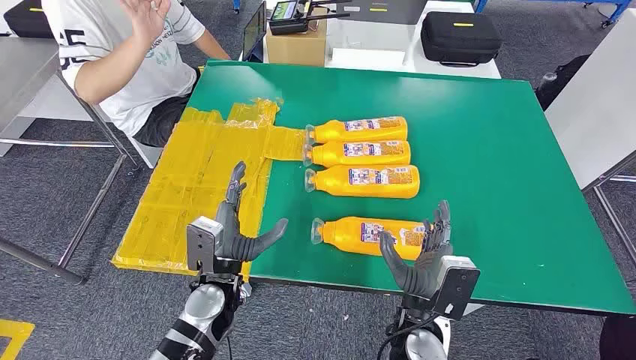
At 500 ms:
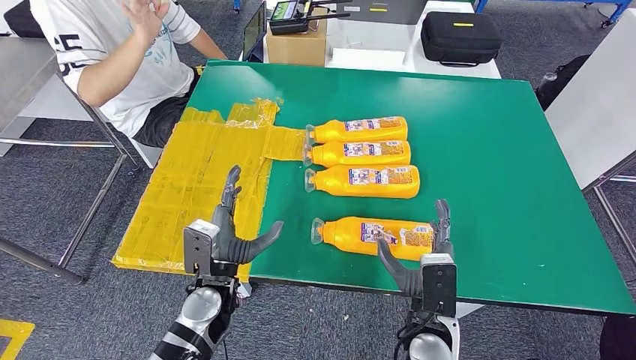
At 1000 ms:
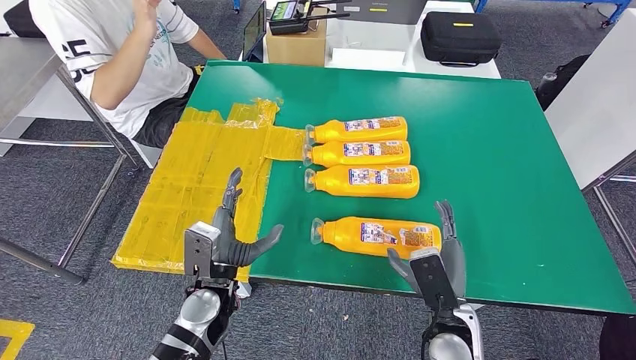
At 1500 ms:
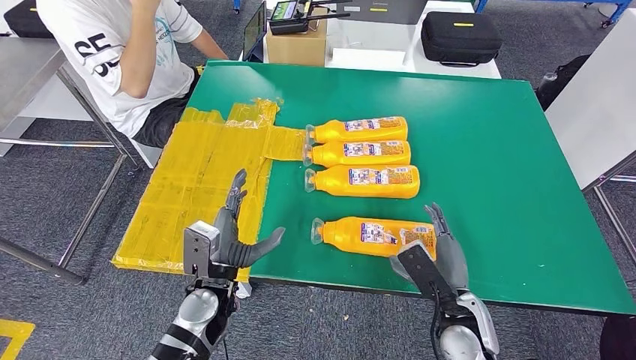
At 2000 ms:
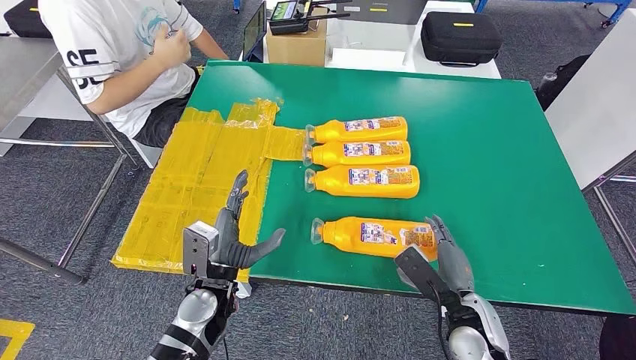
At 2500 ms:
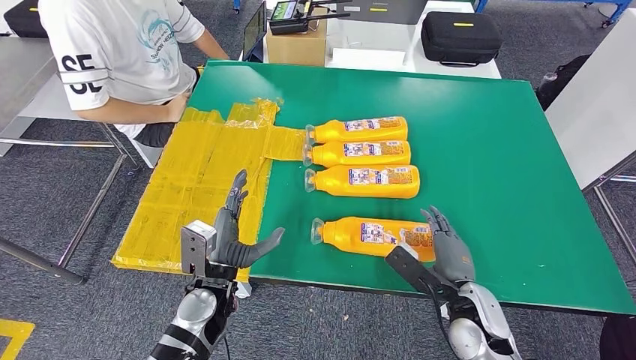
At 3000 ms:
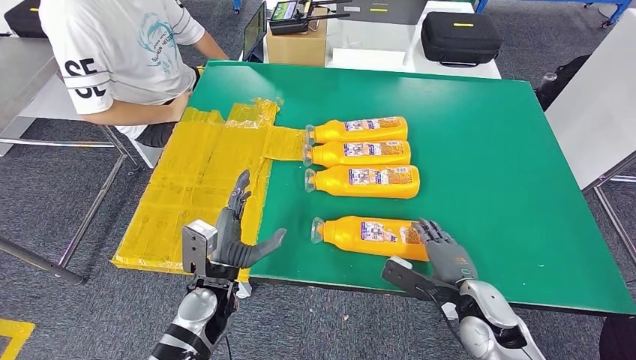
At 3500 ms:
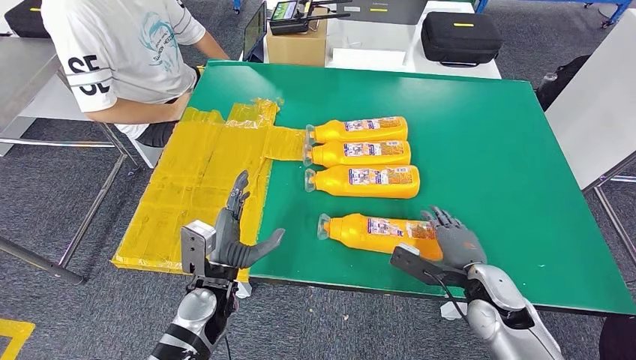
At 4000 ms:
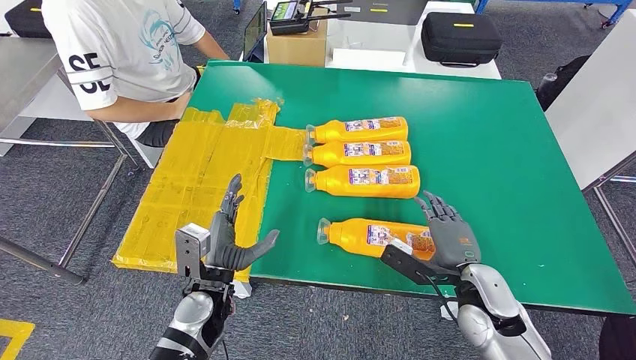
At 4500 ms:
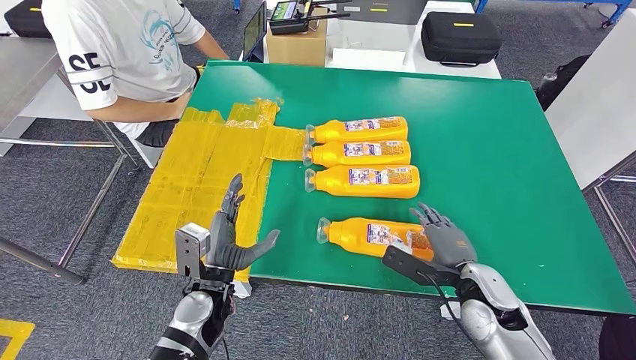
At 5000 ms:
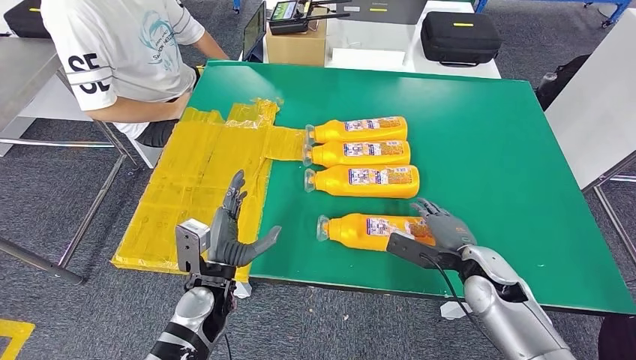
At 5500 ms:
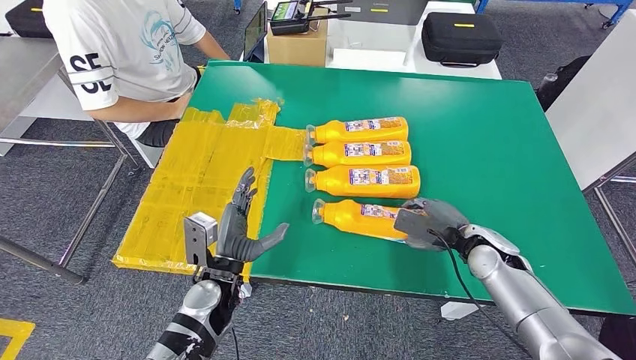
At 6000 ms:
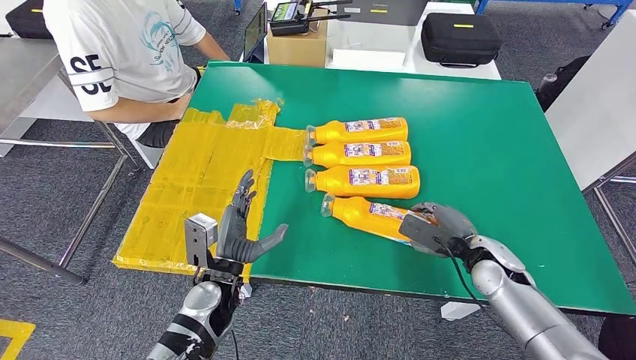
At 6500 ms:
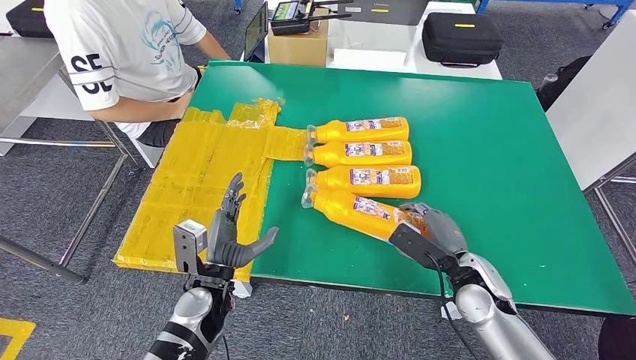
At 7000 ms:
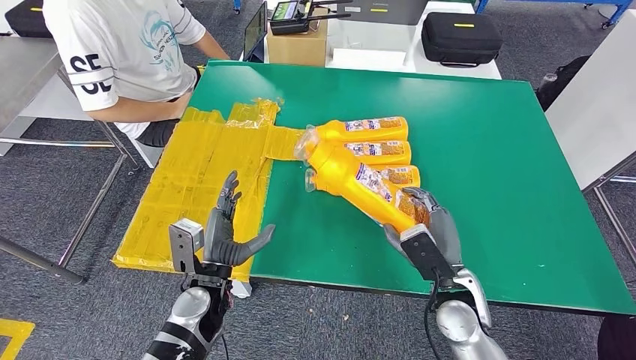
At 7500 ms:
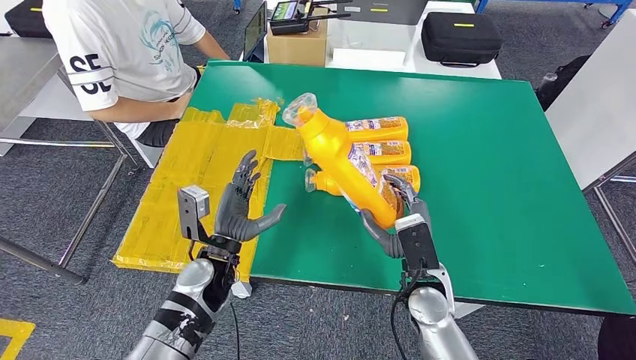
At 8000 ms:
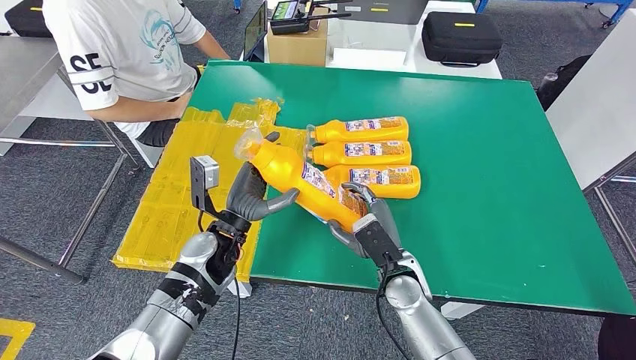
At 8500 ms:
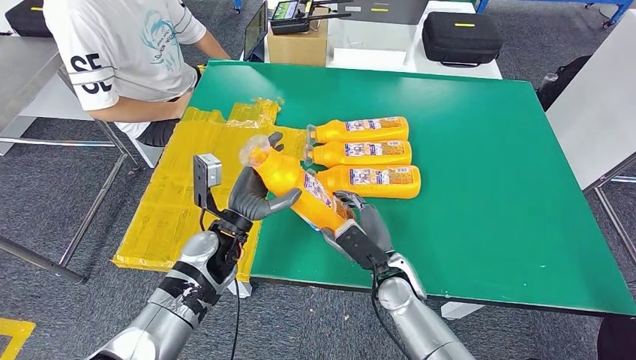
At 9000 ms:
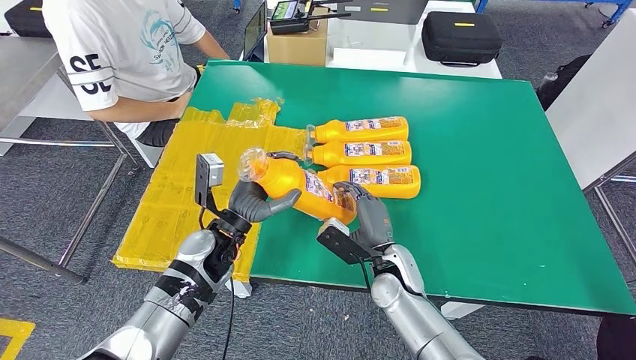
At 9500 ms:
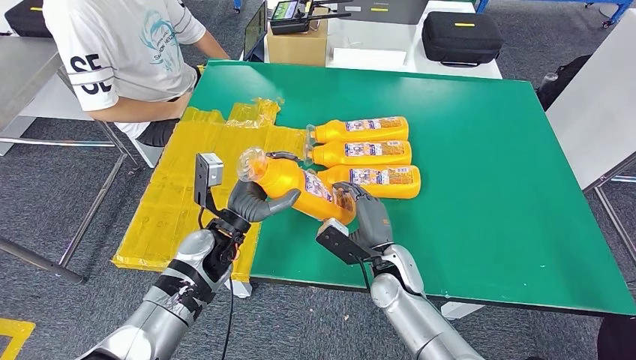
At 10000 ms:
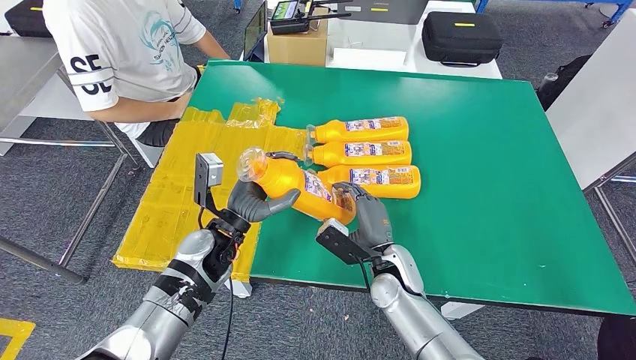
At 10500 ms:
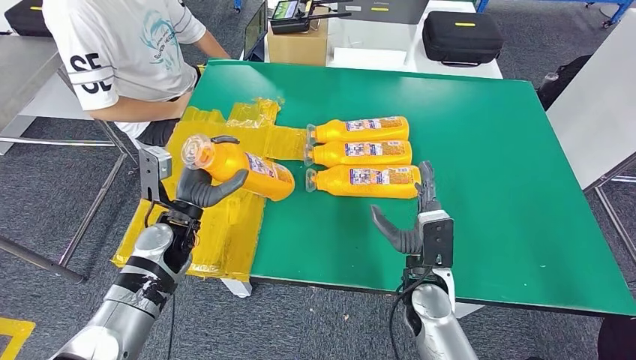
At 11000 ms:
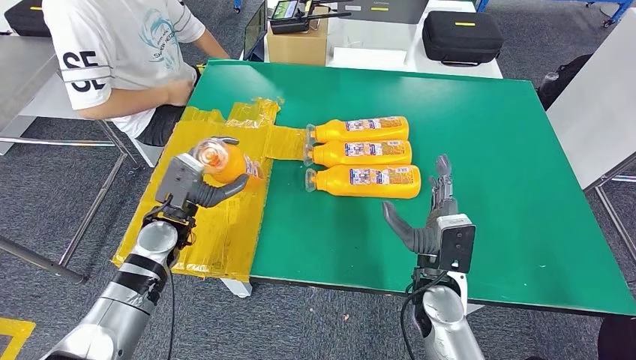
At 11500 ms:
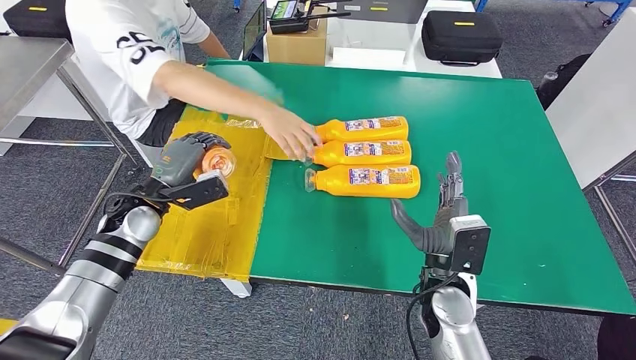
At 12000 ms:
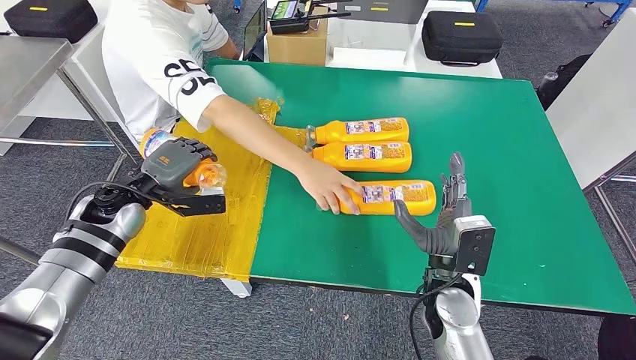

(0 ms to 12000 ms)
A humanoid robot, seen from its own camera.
Step, 0 ms - 8000 ms: Take the fast-moving consumer goods bottle from the table.
4000 ms - 6000 ms: The right hand goes approximately 5 cm forward.
6000 ms - 8000 ms: The right hand moves to the left, about 15 cm. Meanwhile the left hand shifts about 10 cm forward and upward.

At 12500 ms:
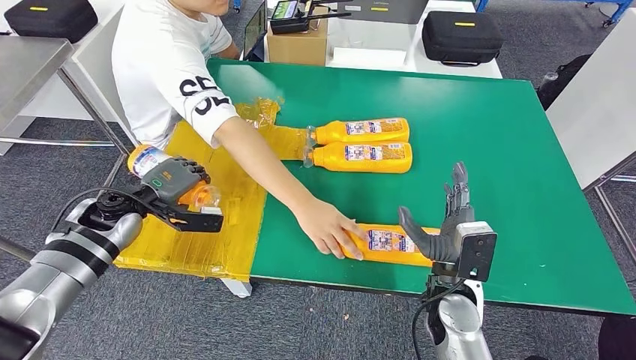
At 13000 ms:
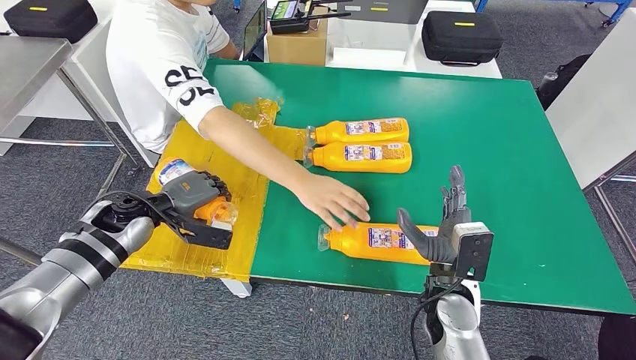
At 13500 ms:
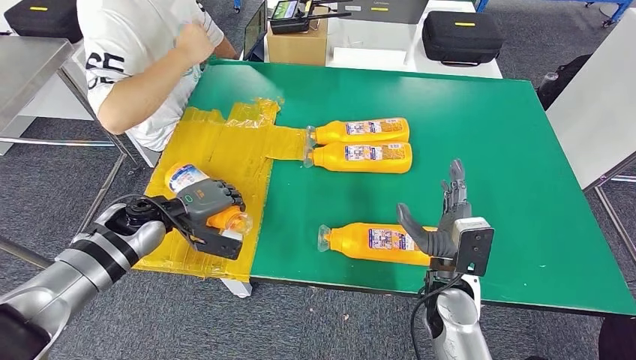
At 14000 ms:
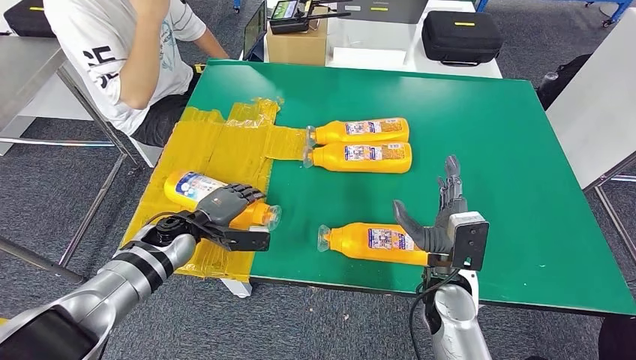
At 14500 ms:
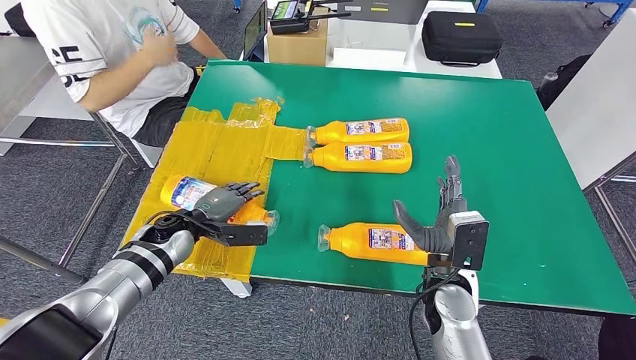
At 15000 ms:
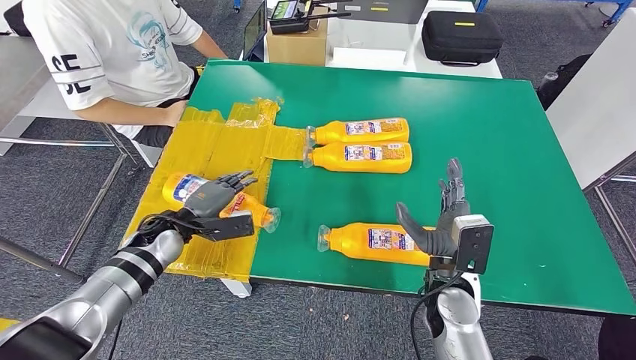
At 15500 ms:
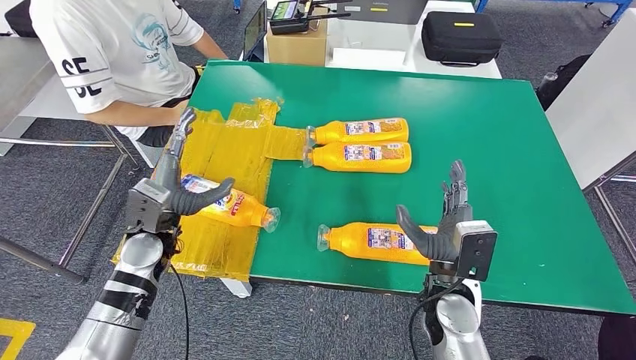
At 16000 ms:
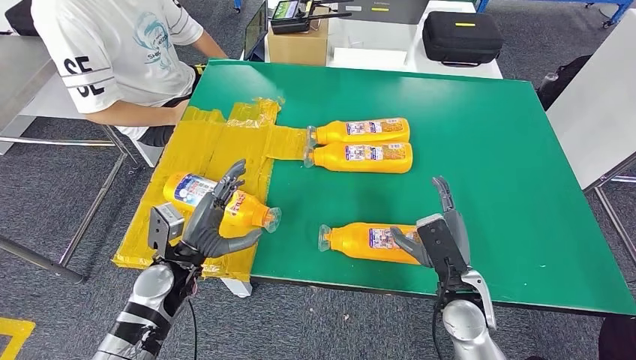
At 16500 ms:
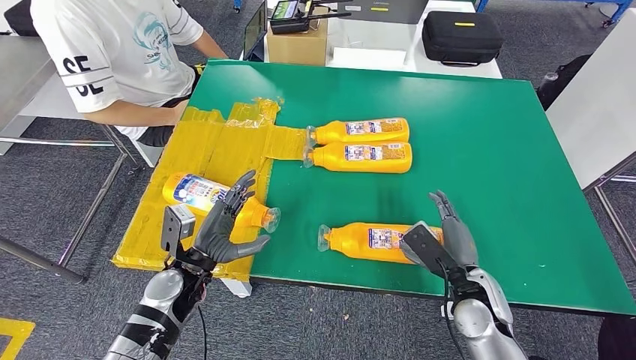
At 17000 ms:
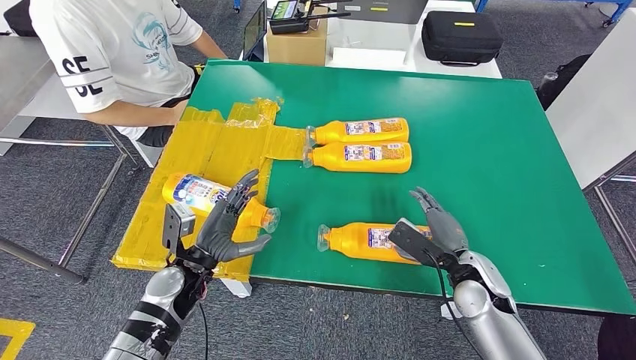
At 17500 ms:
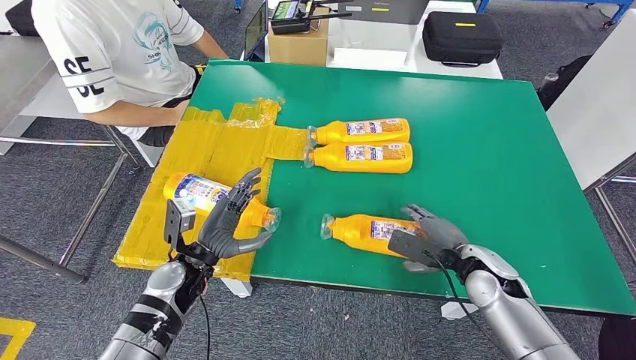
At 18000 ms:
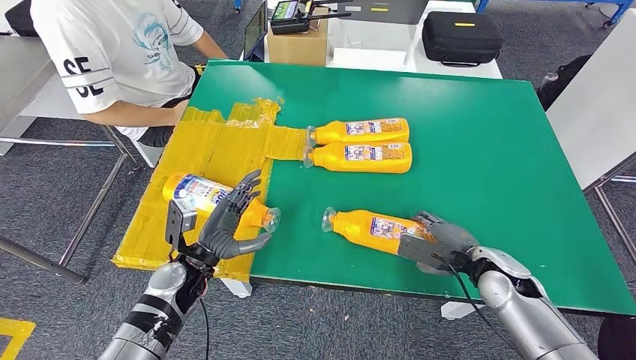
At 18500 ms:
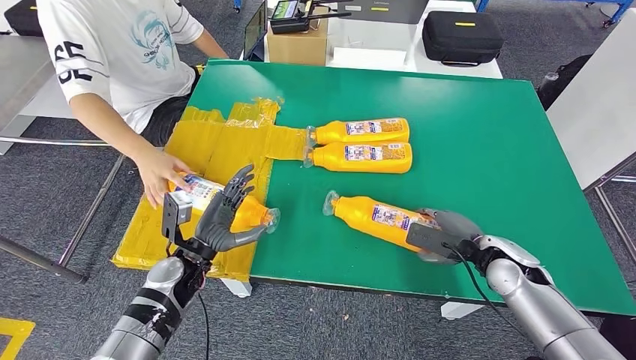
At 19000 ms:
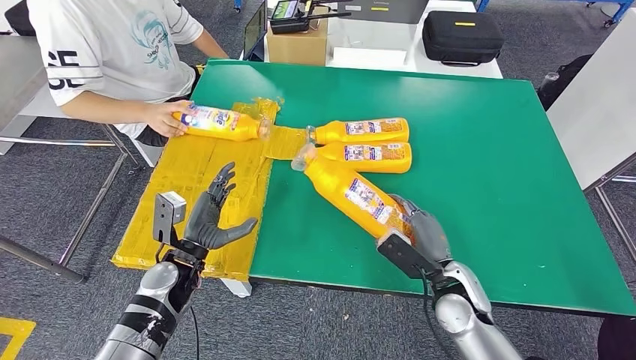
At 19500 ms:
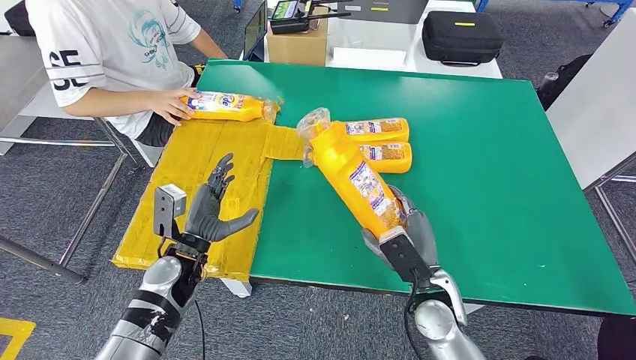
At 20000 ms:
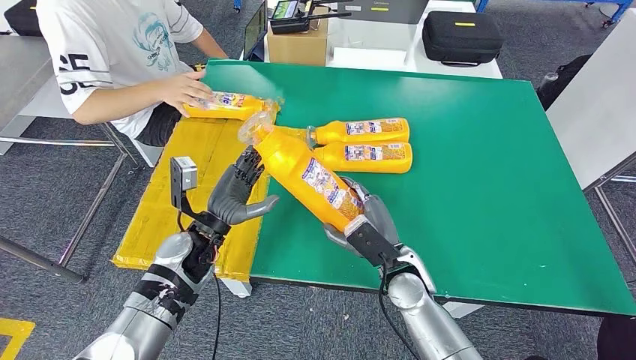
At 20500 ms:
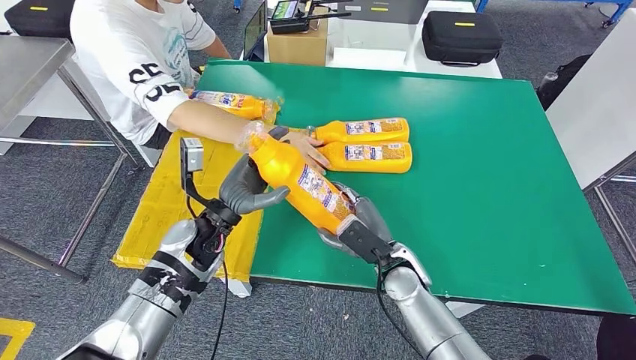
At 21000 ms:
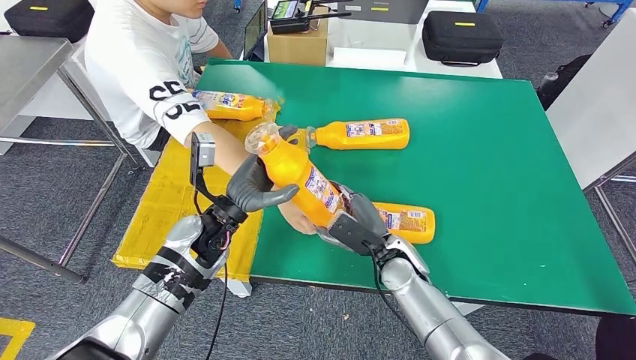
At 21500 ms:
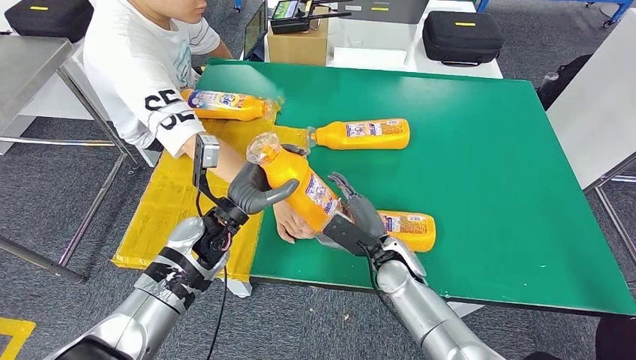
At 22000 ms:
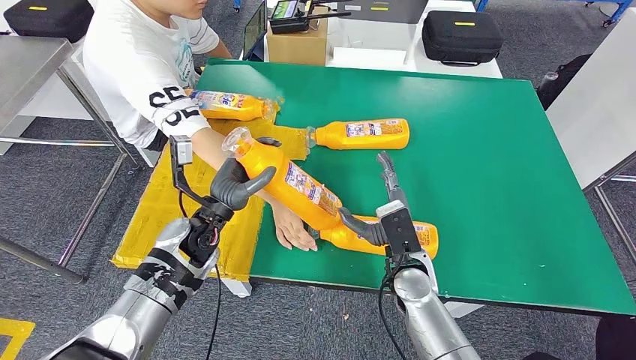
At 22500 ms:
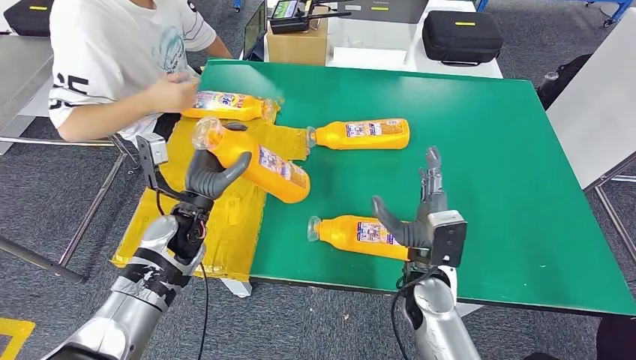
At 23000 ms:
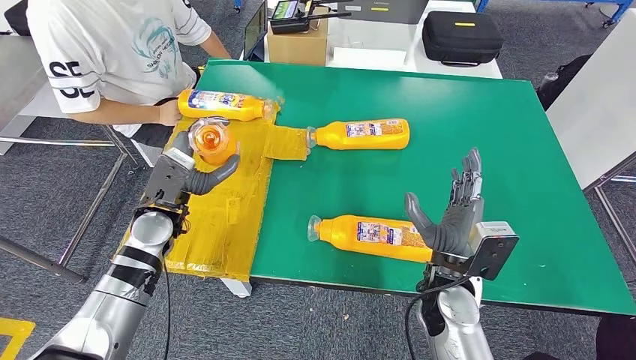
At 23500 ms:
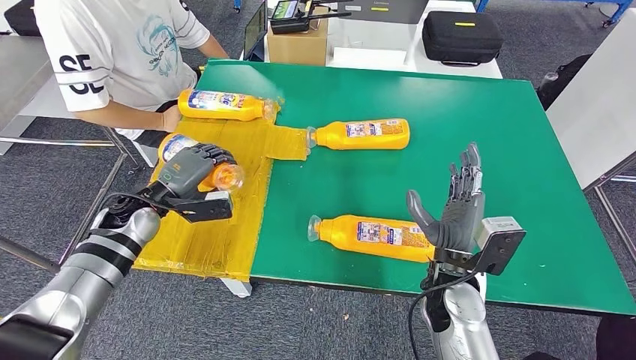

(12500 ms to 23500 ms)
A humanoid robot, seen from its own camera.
Step, 12500 ms - 15000 ms: Flip the fast-moving consumer goods bottle to the front side.
Step, 15500 ms - 19500 ms: Pick up the fast-moving consumer goods bottle from the table.
14500 ms - 16000 ms: The left hand travels backward by about 10 cm.
16000 ms - 18000 ms: The right hand is displaced to the right and forward by about 10 cm.
18000 ms - 20000 ms: The left hand moves some 5 cm. The right hand heads to the left, covering some 15 cm.
